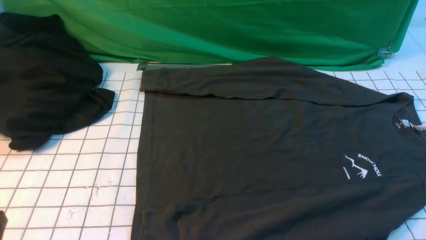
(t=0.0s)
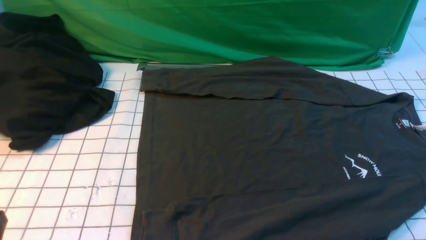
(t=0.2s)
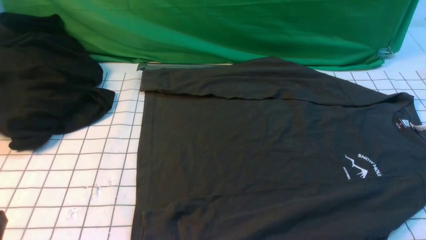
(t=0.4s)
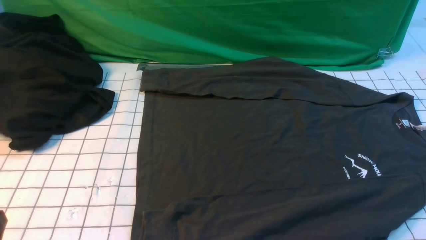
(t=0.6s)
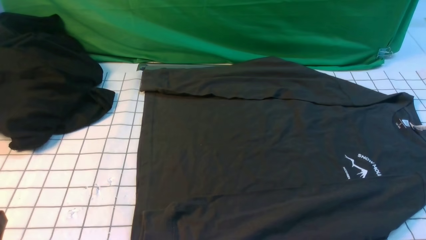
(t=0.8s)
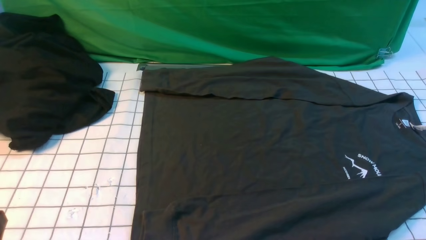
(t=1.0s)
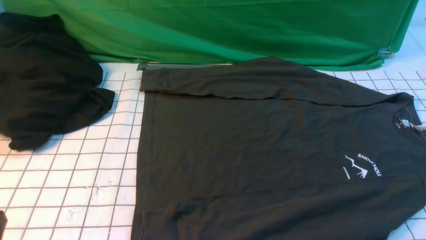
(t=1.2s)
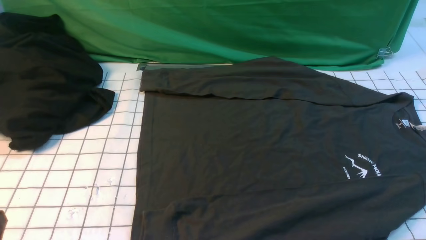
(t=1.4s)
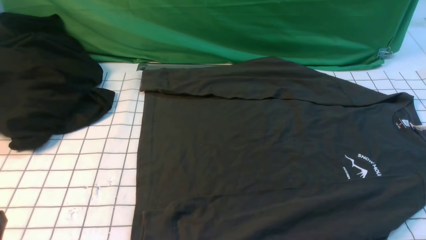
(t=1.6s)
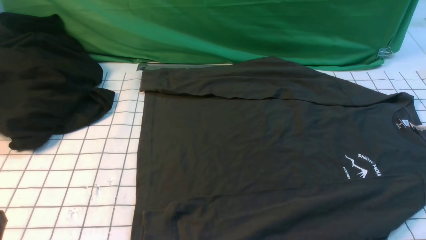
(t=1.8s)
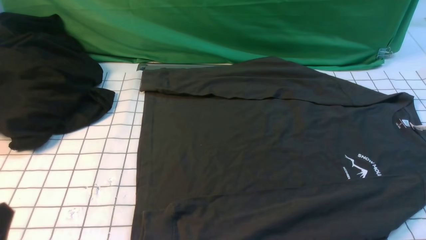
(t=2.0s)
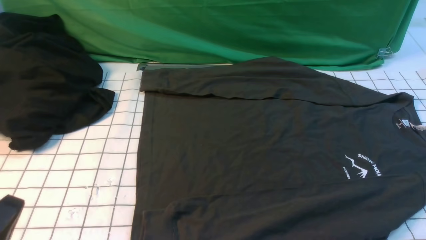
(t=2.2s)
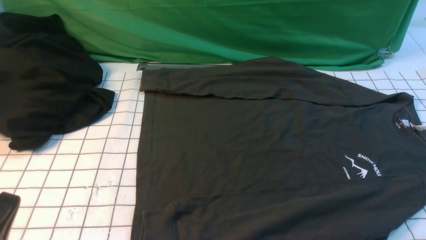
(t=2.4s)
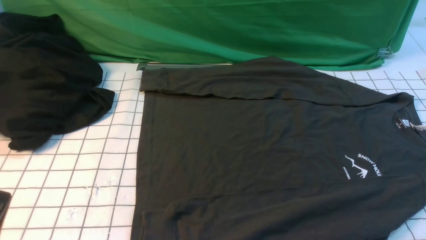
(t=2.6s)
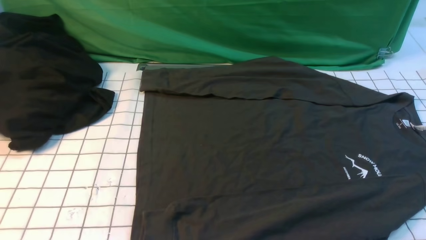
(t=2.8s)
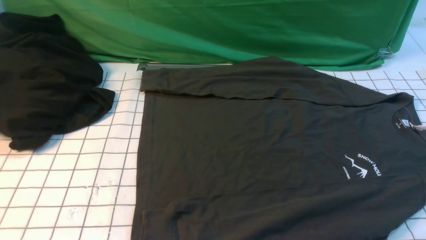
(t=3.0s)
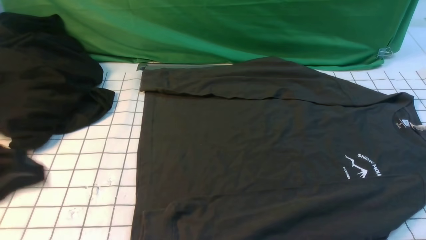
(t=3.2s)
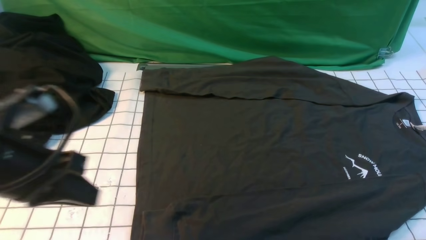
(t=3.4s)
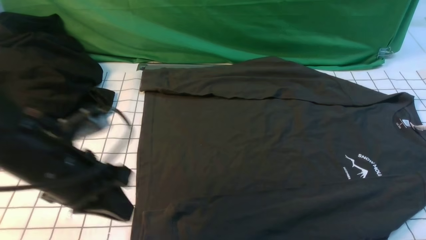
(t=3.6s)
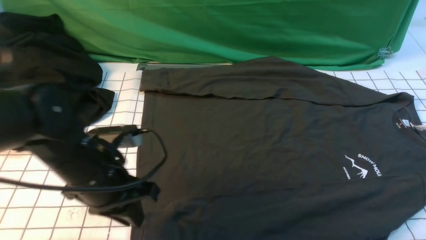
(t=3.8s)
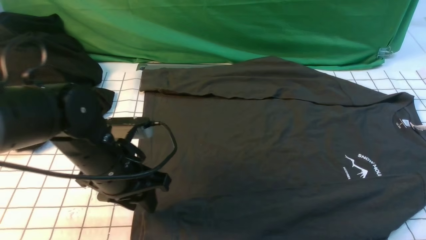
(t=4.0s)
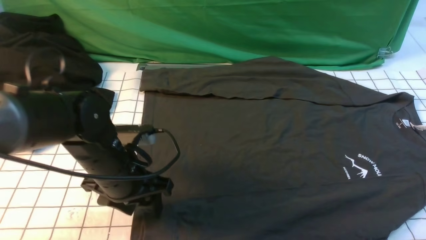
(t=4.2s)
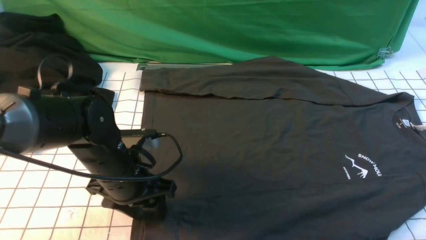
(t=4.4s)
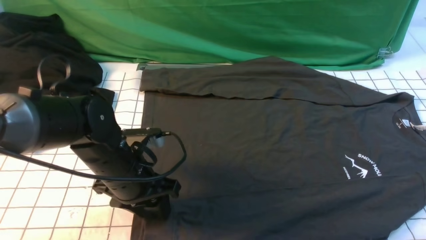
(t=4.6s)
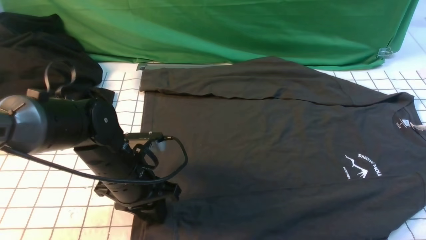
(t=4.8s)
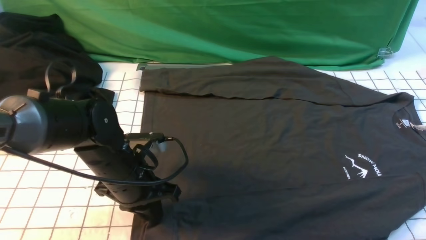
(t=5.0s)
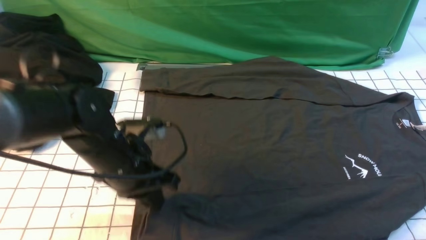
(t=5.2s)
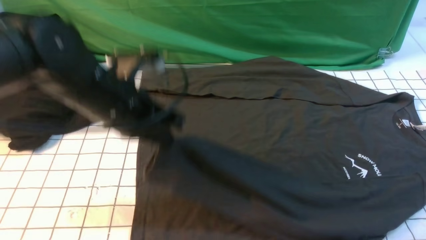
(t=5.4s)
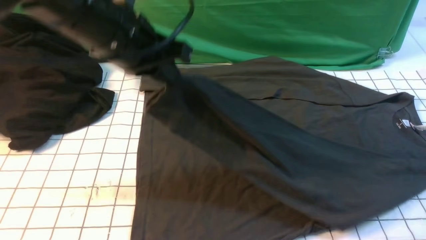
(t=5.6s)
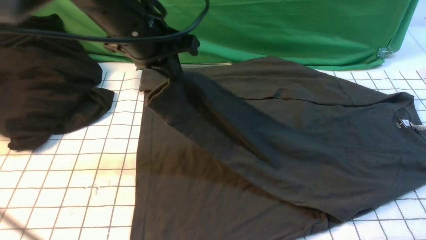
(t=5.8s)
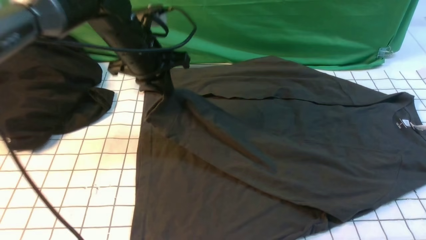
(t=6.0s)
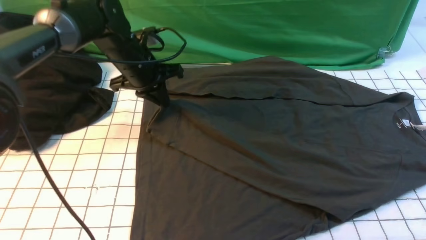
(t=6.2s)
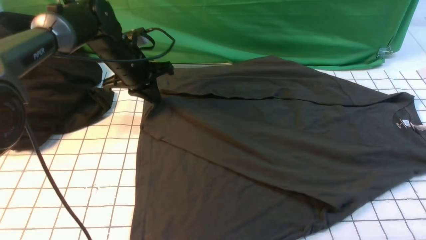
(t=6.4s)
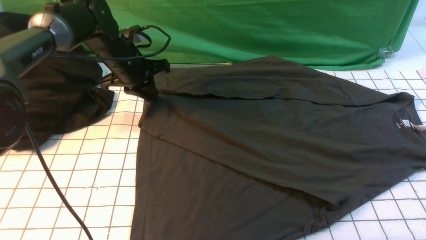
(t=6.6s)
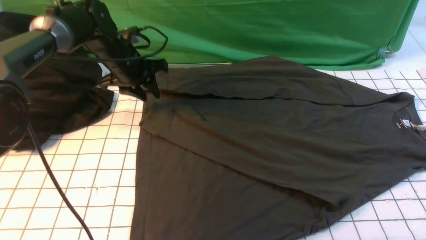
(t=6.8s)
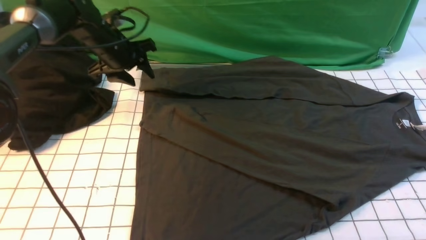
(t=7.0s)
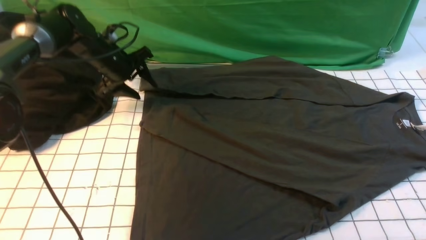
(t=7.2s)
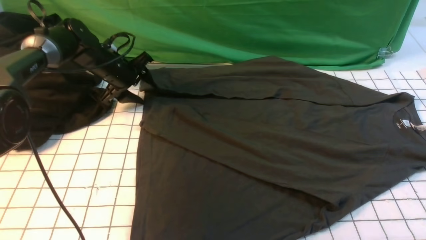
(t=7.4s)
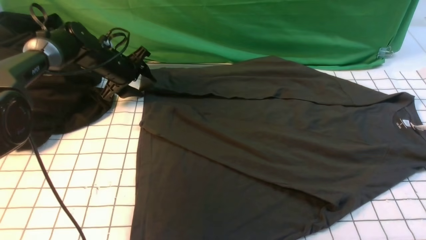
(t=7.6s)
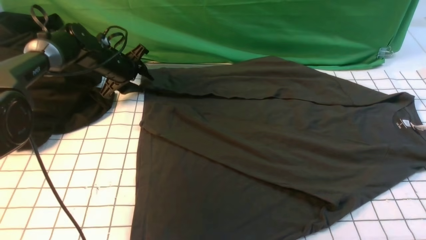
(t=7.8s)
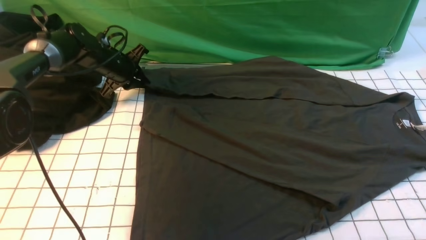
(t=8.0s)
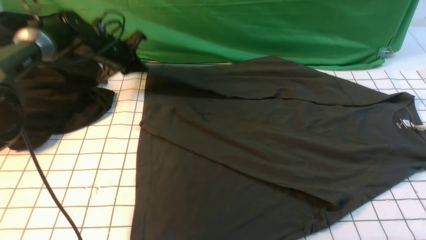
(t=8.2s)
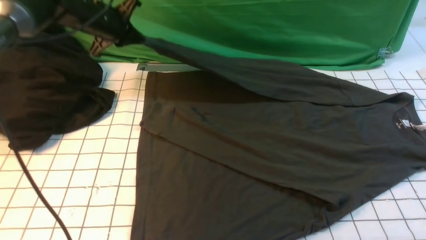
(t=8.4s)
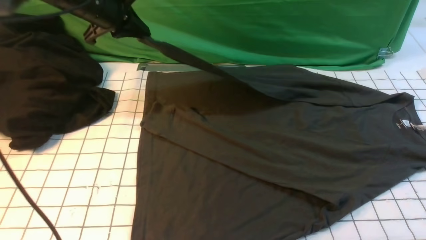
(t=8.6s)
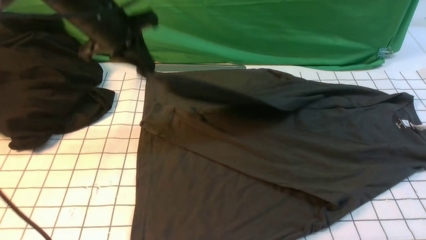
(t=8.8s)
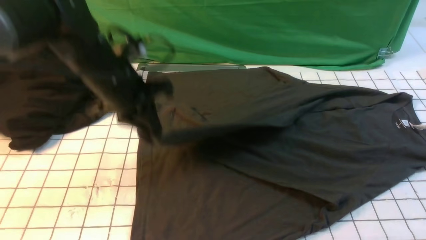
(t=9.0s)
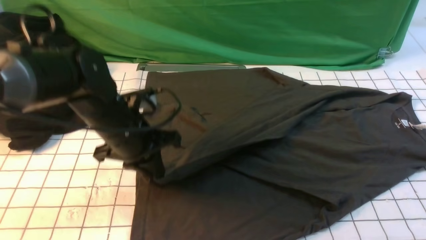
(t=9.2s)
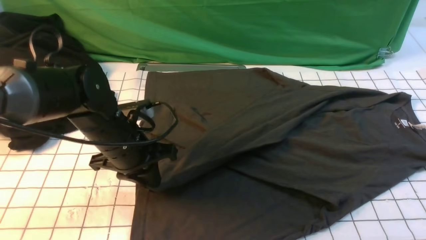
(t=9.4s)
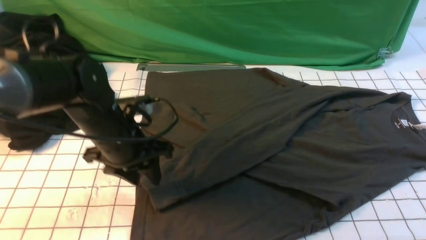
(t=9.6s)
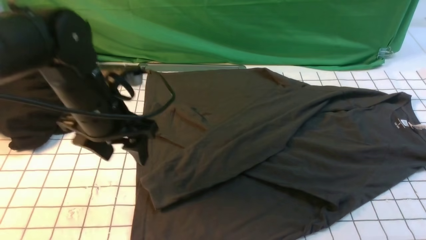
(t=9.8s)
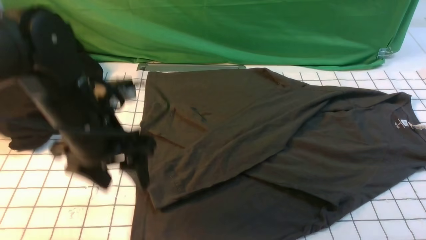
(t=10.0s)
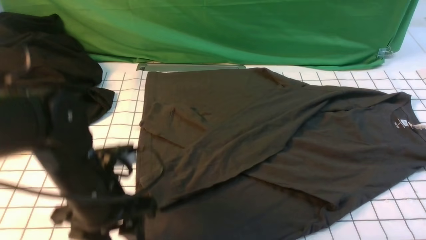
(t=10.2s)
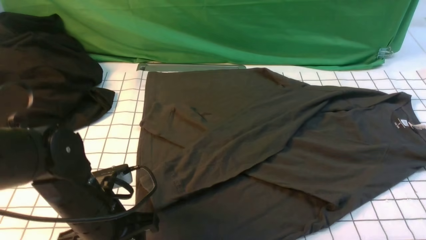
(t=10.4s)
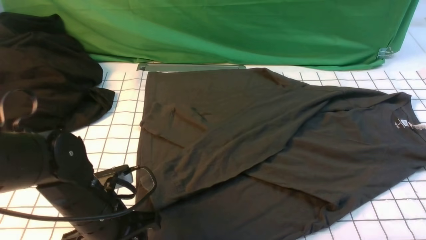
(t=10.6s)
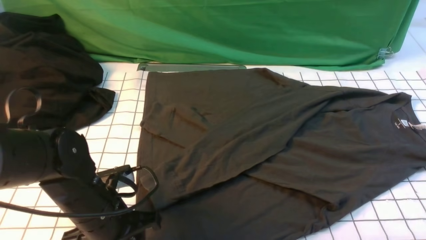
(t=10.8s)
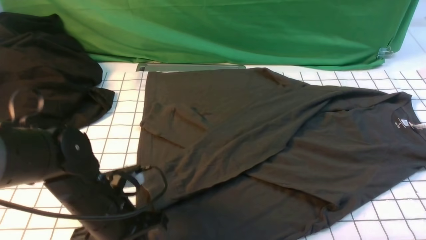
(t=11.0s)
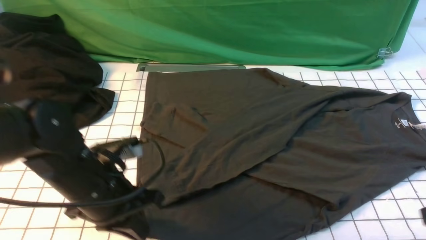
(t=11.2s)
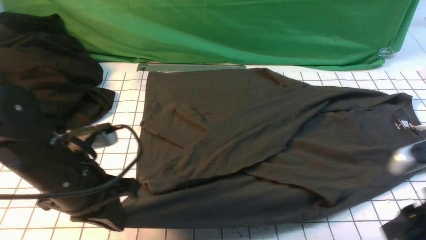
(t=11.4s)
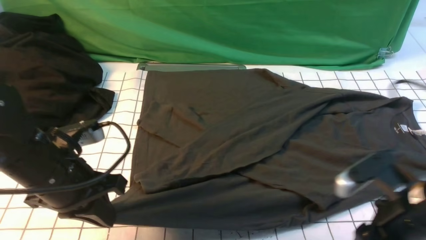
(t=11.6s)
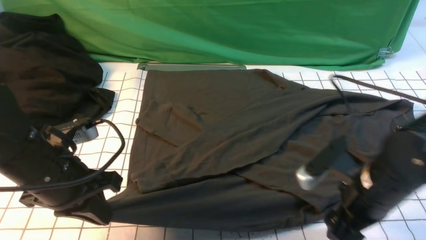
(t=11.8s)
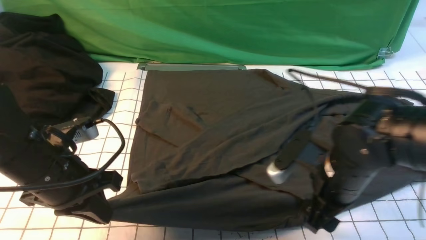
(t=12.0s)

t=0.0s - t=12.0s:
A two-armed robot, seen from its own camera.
Step, t=0.0s - t=4.8s: use the left arm to clamp the cuff closest to it.
Step, t=5.2s - t=6.6s: use the left arm to drag and place the cuff at the centered position on the left edge of the fabric.
Step, t=6.8s - t=8.0s: use the left arm to clamp the cuff farthest from it.
Step, t=8.2s - t=9.4s: use the left arm to drag and drop the cuff onto the cuff closest to the left arm.
t=0.0s - t=1.6s: Both grippers stay put.
t=3.0s - t=4.4s: The right gripper moves forward, roughly 10 cm. The left gripper travels forward, downward and to the right by approximately 30 cm, and opens its fingers.
t=4.4s - t=6.0s: The left gripper shifts about 20 cm forward and upward, and closes.
t=6.0s - t=7.6s: The left gripper moves downward, forward and to the left, approximately 20 cm, and opens.
t=7.6s - t=9.0s: The left gripper is displaced backward, upward and to the right by roughly 20 cm, and closes up.
t=9.0s - t=10.4s: The left gripper shifts roughly 15 cm backward and downward, and opens.
t=10.4s - t=12.0s: The left gripper travels upward and to the left by roughly 10 cm, and closes up; the right gripper heads to the left, forward and downward, covering approximately 20 cm, and opens its fingers.

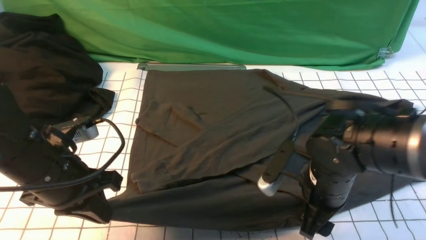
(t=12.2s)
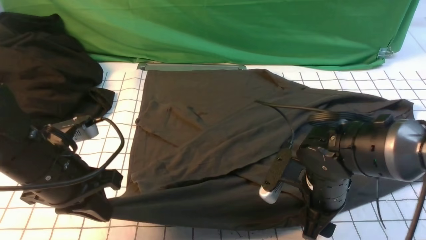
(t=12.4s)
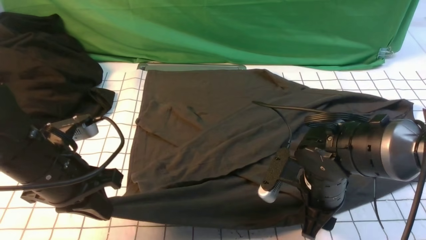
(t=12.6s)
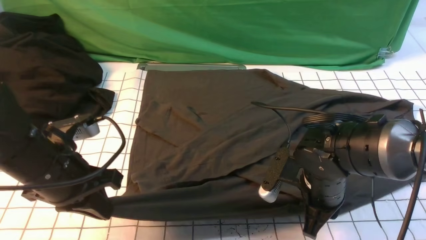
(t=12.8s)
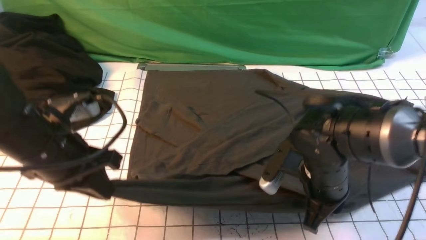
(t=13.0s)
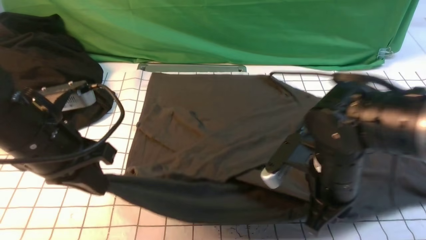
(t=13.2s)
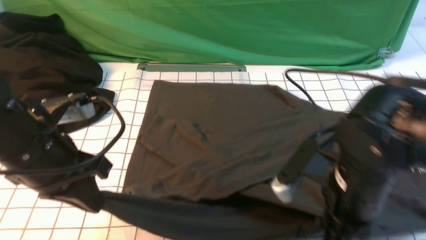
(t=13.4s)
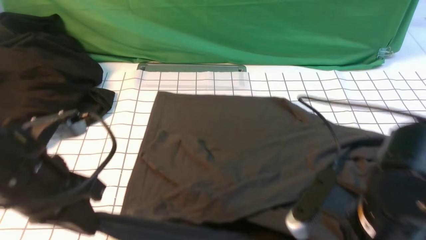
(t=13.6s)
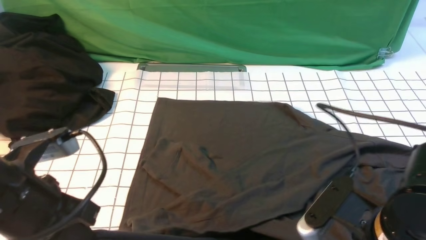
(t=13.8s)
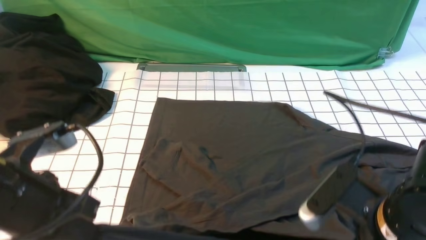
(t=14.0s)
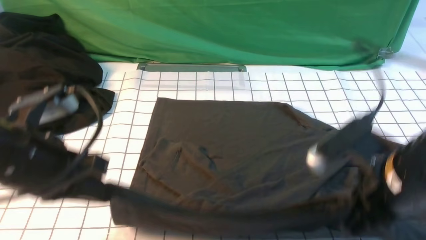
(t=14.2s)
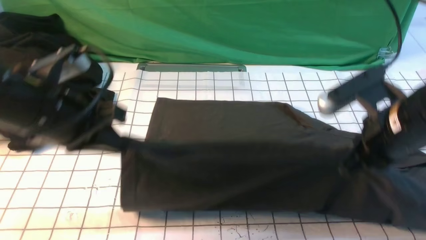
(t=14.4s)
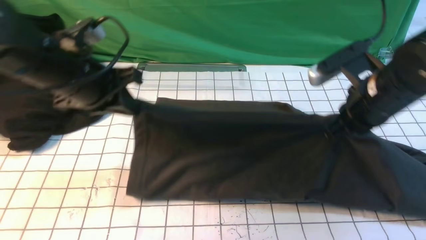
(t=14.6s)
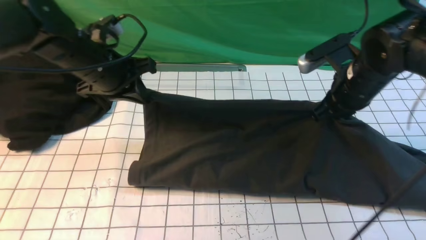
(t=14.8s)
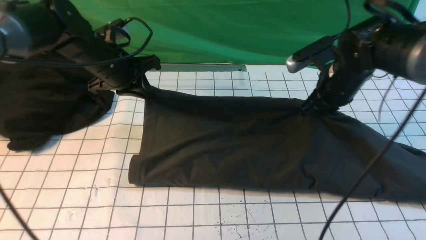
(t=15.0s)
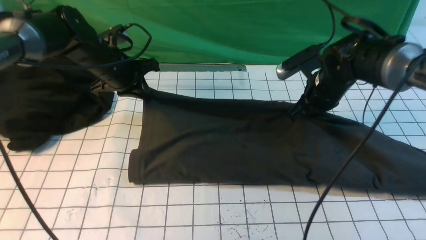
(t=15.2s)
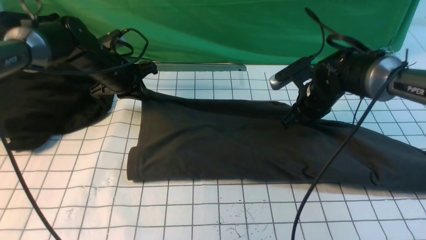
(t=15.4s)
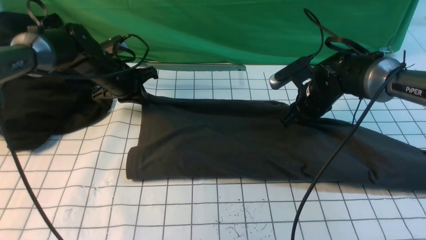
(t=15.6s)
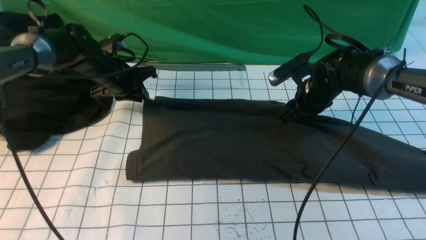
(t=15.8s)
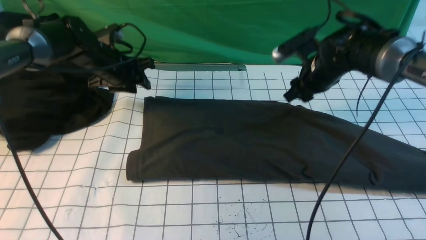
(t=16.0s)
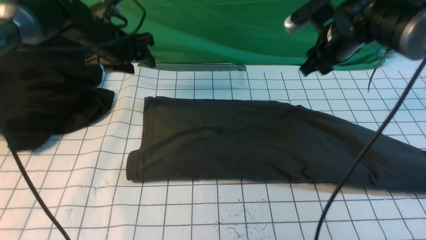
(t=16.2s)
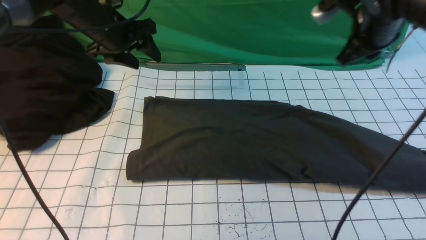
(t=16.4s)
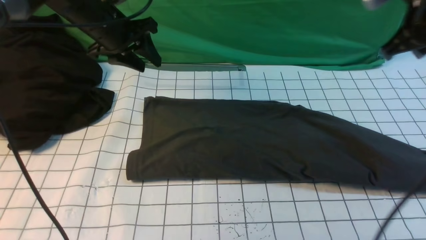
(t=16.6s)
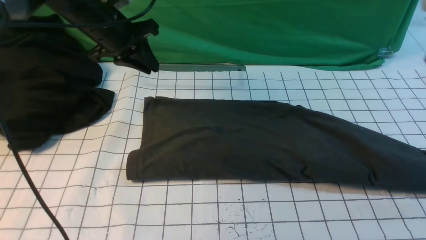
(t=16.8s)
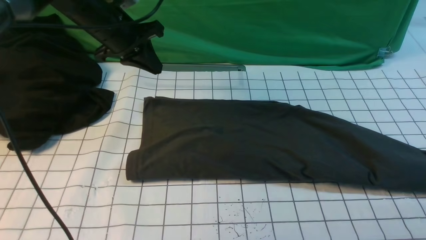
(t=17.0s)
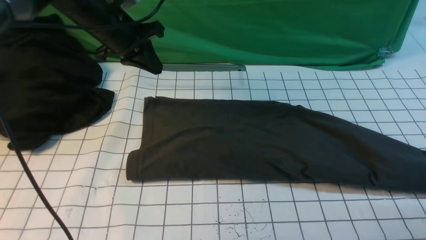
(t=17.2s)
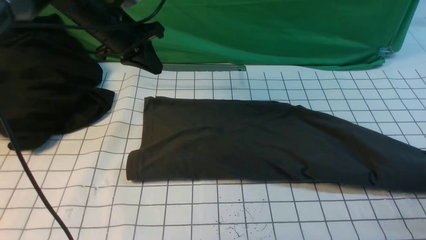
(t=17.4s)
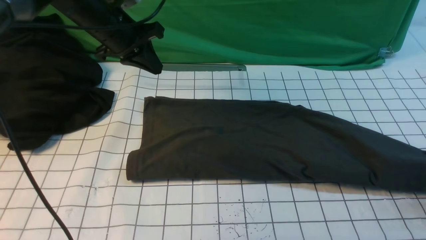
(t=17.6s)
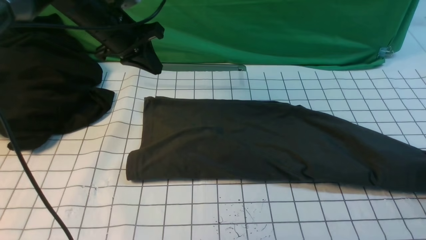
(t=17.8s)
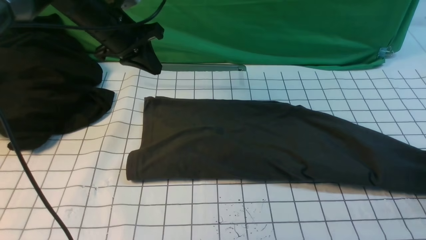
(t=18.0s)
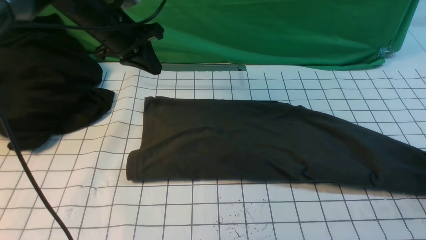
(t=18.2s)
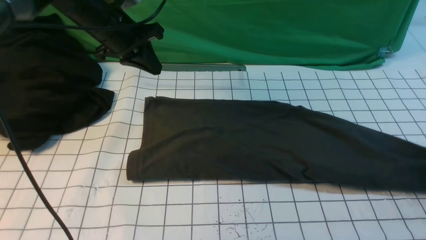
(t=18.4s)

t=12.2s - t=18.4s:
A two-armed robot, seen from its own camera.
Step, t=12.8s - t=15.8s: use both arms to drag the lower edge of the fabric forward and fold it over the upper edge.
t=12.2s - t=13.8s: The left gripper heads backward, covering roughly 5 cm. Meanwhile the right gripper shifts about 15 cm backward and upward, and closes its fingers.
t=13.8s - t=15.4s: The grippers both shift forward by approximately 30 cm.
t=15.4s - t=16.8s: The left gripper is displaced upward by approximately 10 cm, and opens, then closes again. Meanwhile the right gripper moves upward, to the right and backward, about 25 cm.
t=16.8s - t=18.4s: The right gripper travels downward and to the right by approximately 20 cm, and opens, then closes once more.